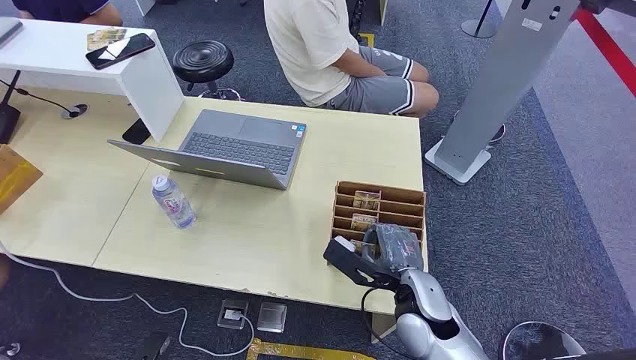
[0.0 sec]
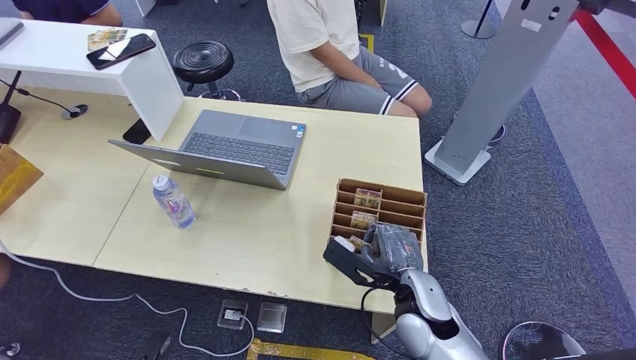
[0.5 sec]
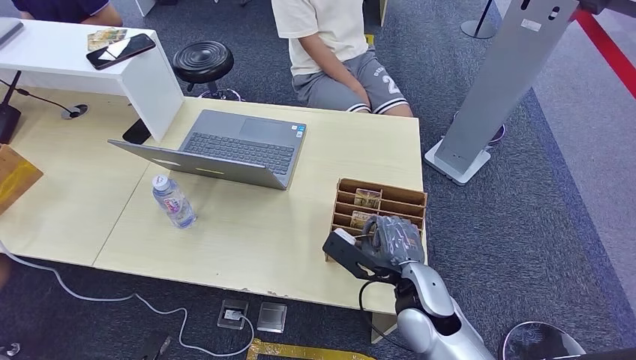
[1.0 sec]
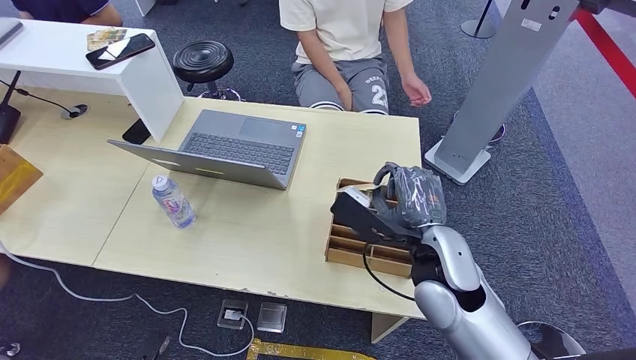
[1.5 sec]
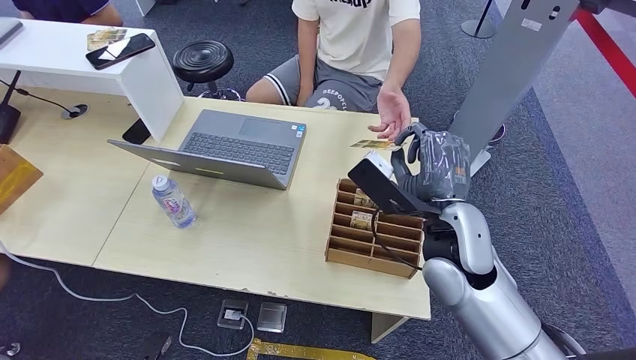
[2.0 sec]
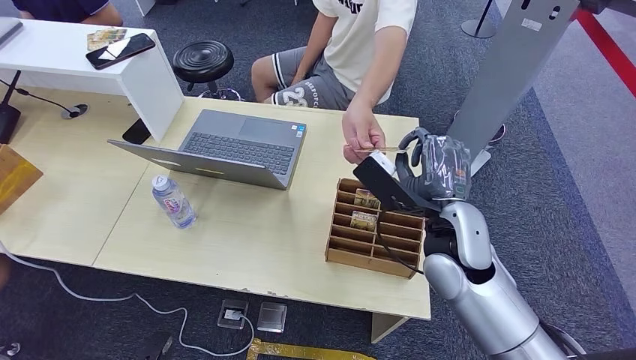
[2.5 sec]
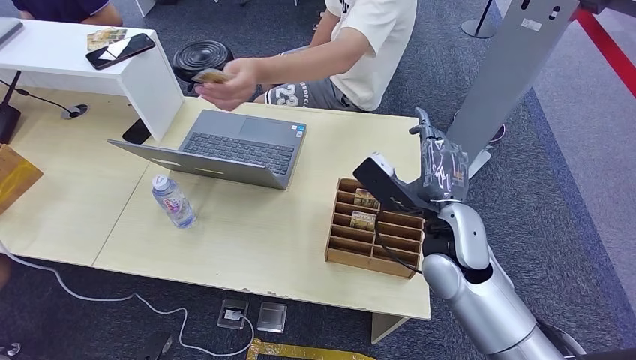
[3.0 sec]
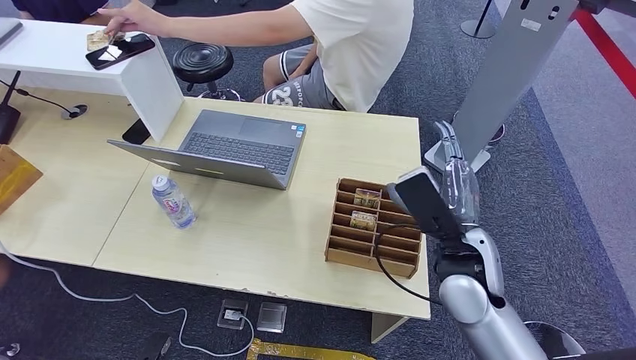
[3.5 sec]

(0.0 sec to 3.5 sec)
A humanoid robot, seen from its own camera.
Step, 0.0 sec - 1.5 sec: Pick up the room card from the card holder.
Step, 2.0 sec - 3.5 sec: Hand the room card to the target.

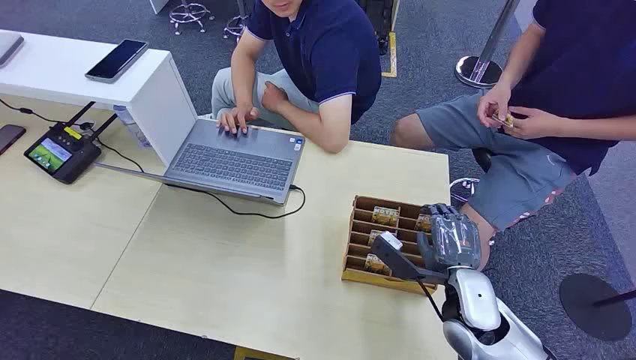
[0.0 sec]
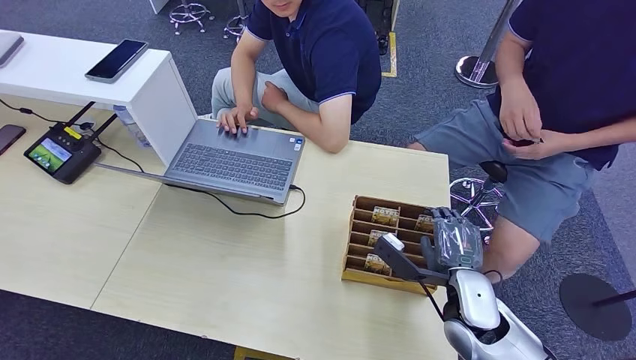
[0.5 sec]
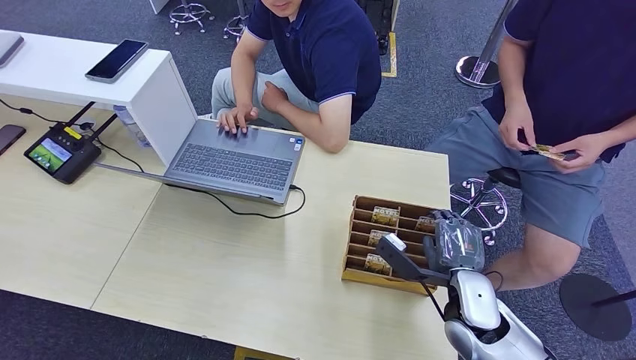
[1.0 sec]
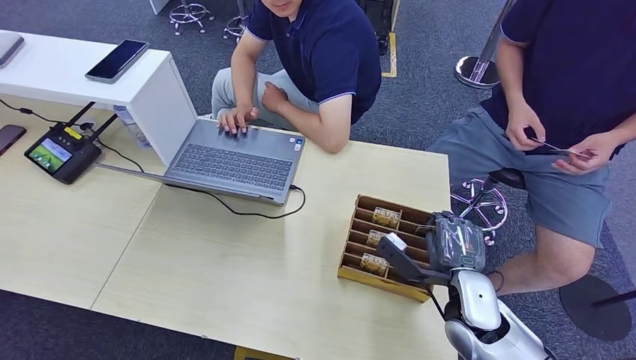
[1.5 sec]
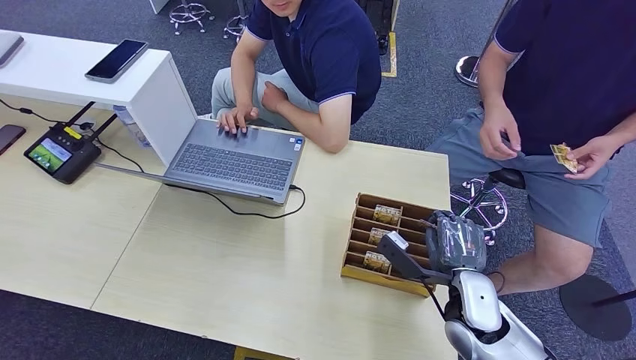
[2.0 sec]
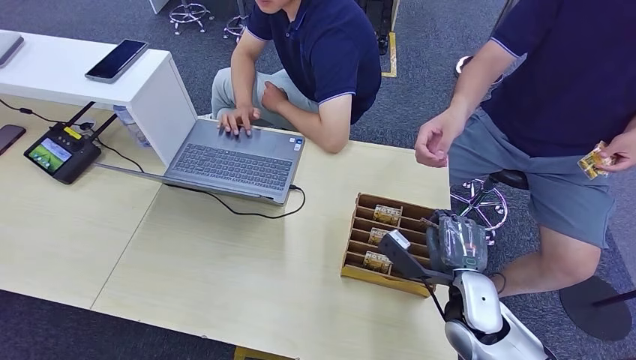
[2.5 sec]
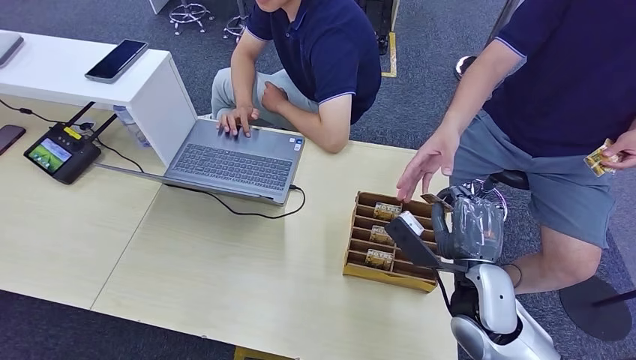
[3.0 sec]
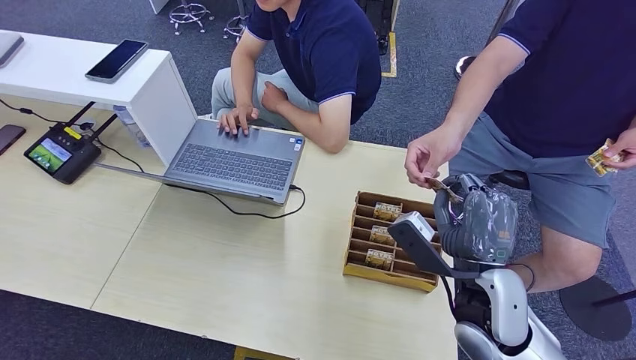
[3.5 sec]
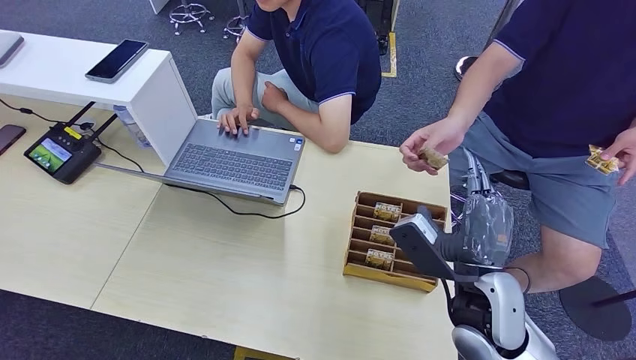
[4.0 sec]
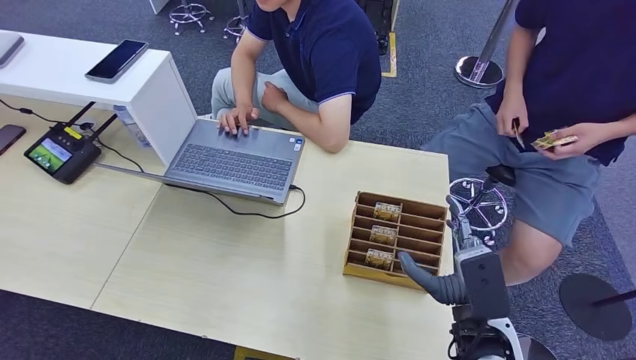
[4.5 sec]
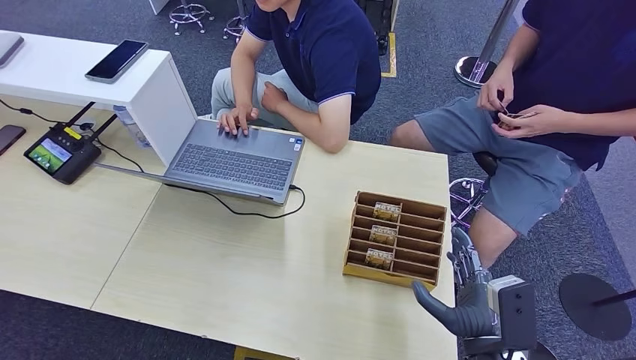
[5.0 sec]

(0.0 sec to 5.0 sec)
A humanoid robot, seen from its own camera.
Step, 0.0 sec - 2.5 sec: Pick up the room card from the card holder.
Step, 3.0 sec - 5.0 sec: Hand the room card to the target.
2.5 sec - 5.0 sec: The right hand moves backward, about 10 cm.
